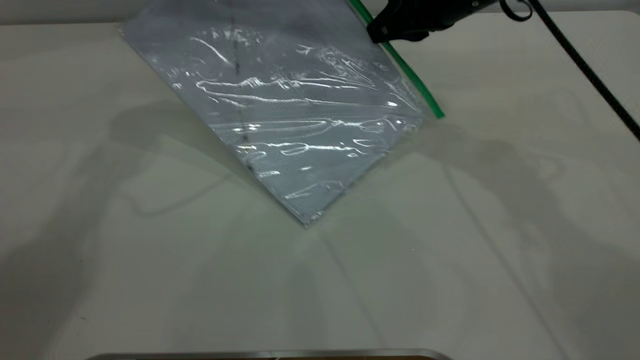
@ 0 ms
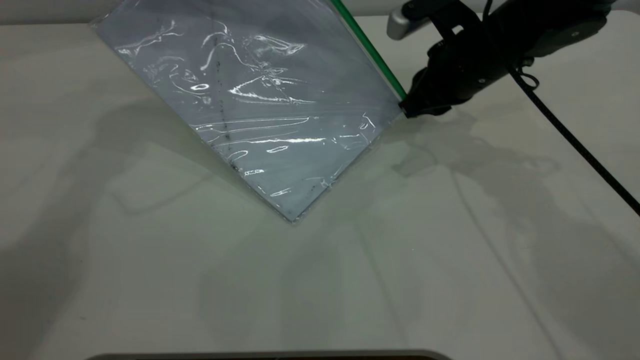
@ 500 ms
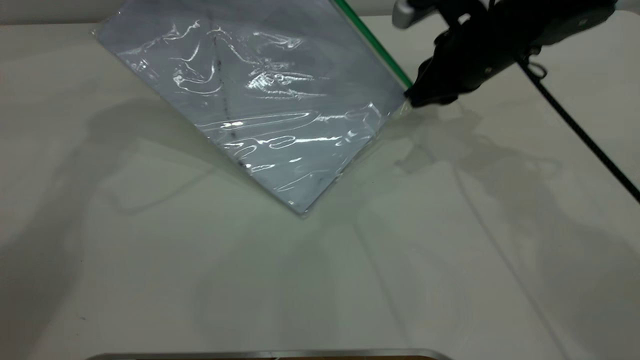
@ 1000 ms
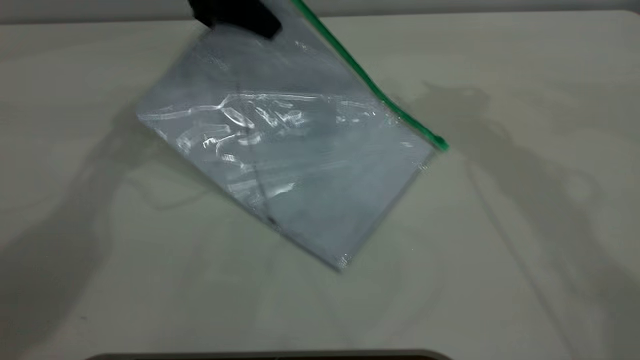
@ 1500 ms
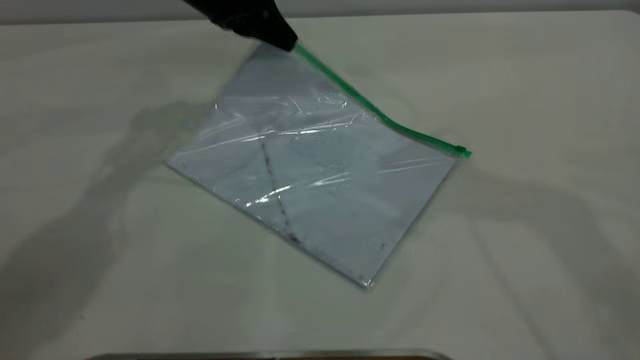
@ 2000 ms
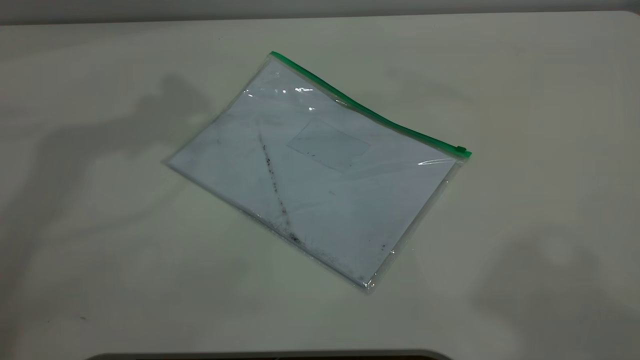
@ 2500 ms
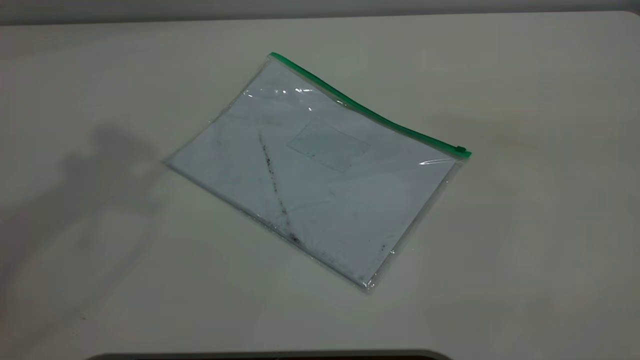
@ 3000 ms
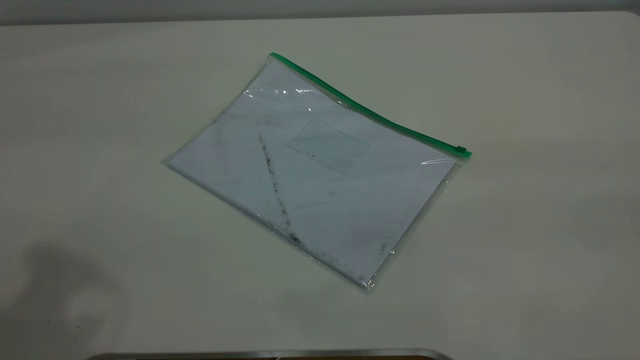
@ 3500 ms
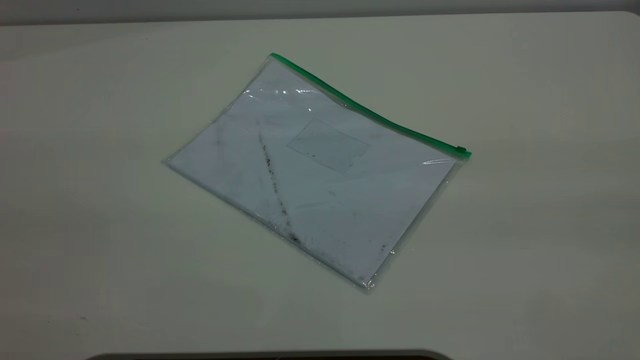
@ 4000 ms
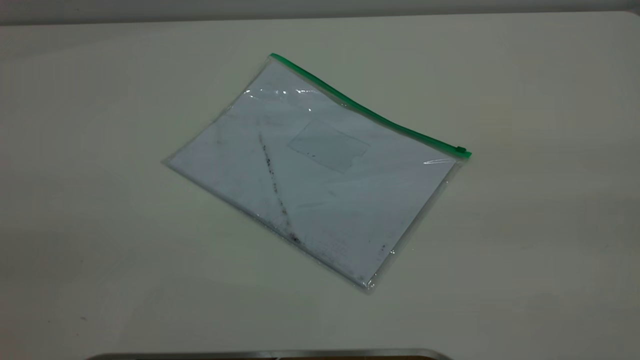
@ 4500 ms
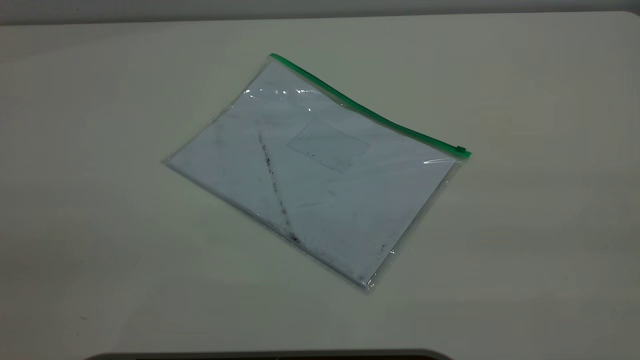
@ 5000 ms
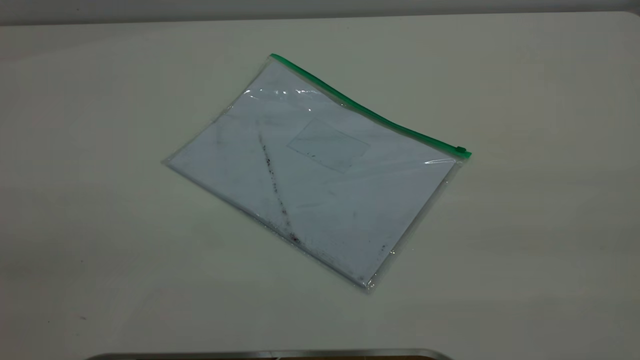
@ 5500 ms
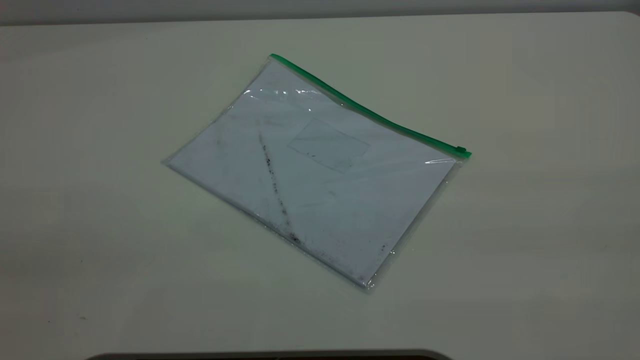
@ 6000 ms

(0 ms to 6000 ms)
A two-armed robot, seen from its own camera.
Step, 1500 ms - 2000 ms: Place the transparent plastic bag.
0 ms - 2000 ms: The right gripper moves upward and backward, about 25 cm, and opens; the left gripper goes roughly 10 cm downward, and opens.
2000 ms - 4000 ms: The right gripper moves backward and to the right, roughly 30 cm; the left gripper goes roughly 50 cm backward and upward.
